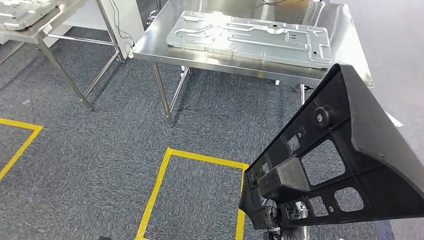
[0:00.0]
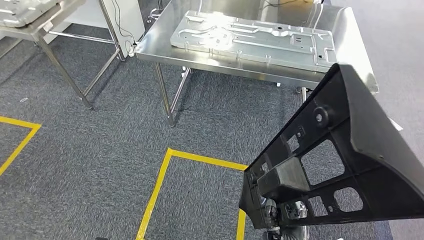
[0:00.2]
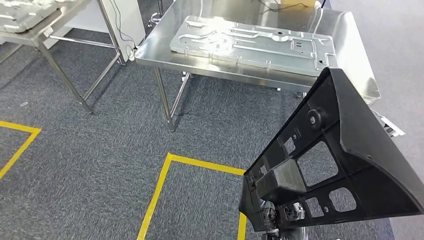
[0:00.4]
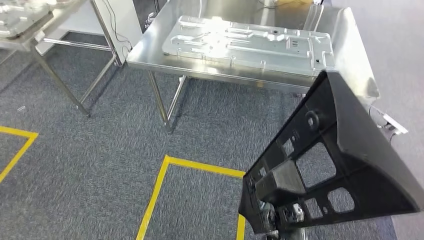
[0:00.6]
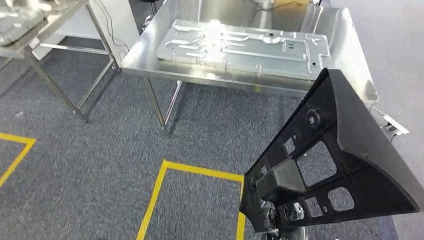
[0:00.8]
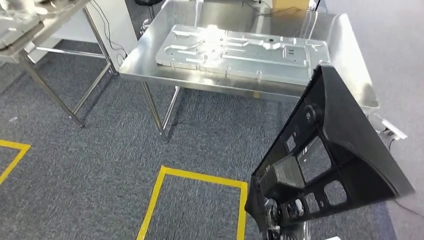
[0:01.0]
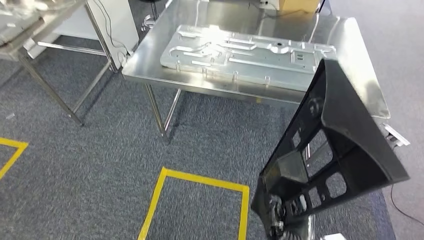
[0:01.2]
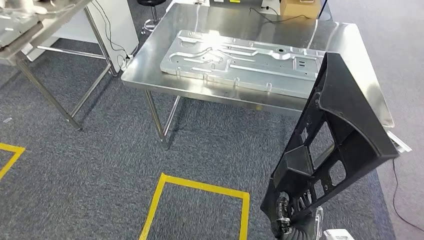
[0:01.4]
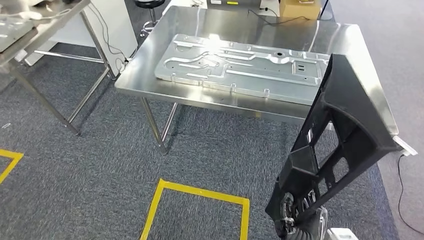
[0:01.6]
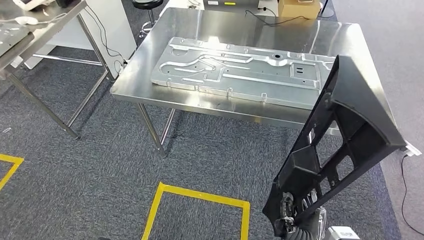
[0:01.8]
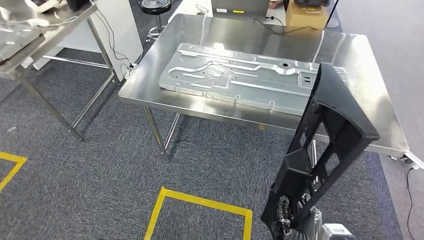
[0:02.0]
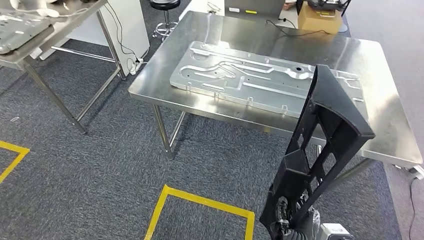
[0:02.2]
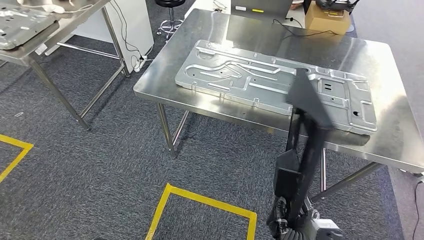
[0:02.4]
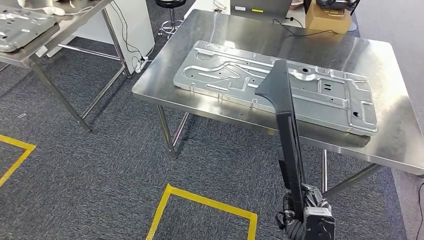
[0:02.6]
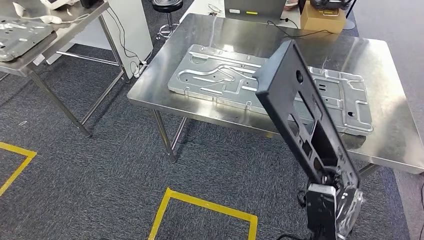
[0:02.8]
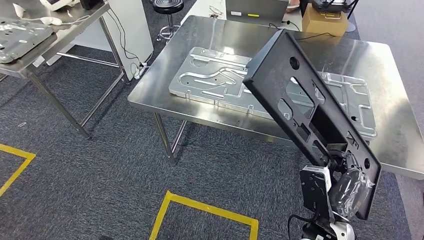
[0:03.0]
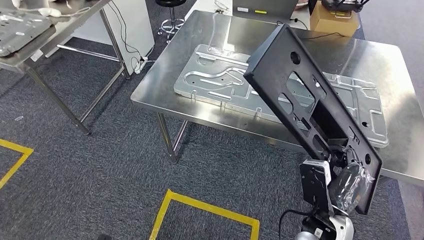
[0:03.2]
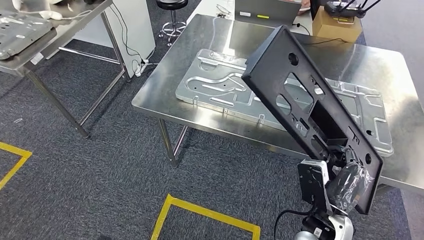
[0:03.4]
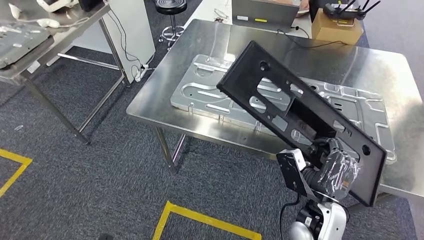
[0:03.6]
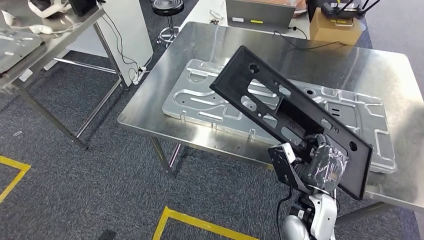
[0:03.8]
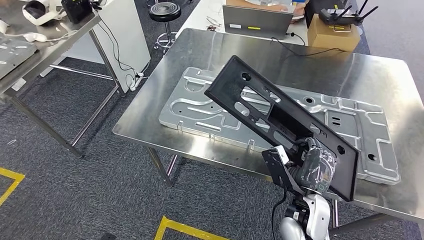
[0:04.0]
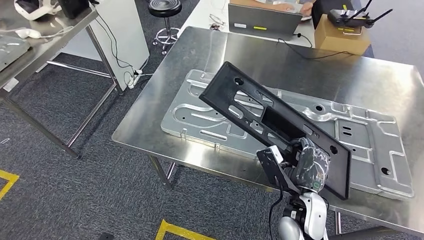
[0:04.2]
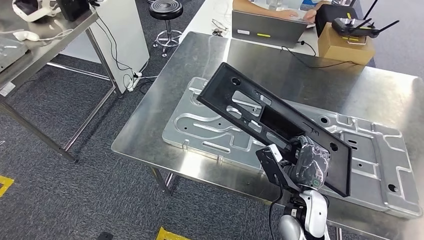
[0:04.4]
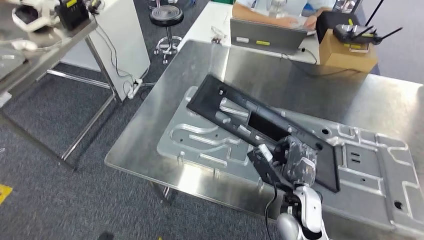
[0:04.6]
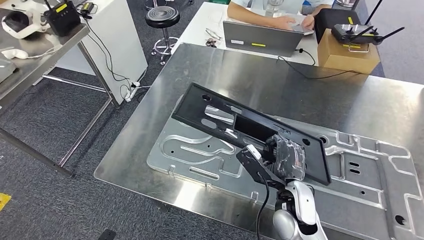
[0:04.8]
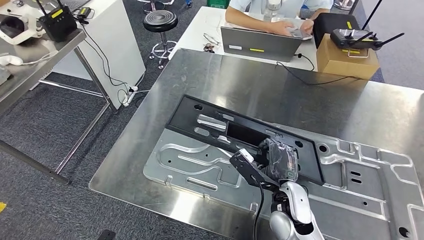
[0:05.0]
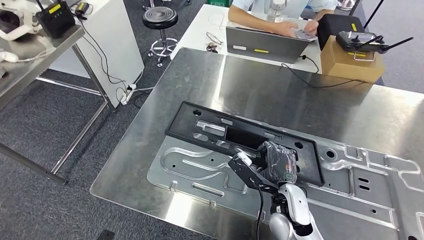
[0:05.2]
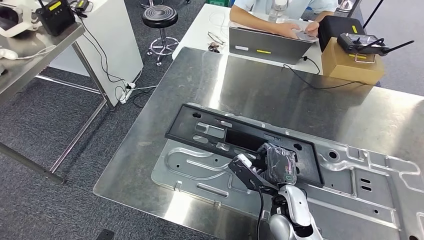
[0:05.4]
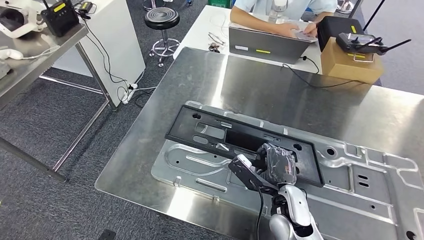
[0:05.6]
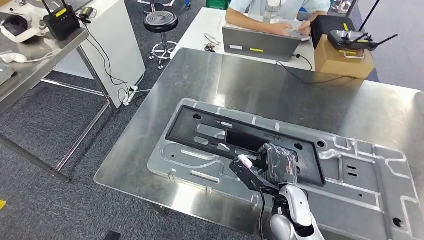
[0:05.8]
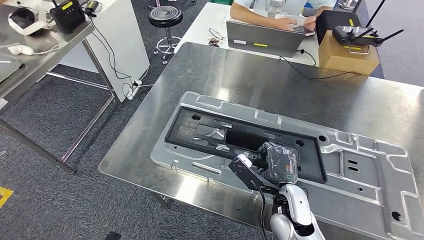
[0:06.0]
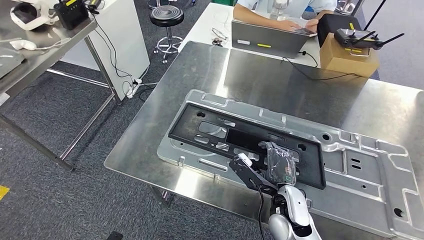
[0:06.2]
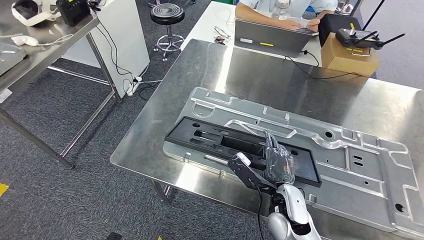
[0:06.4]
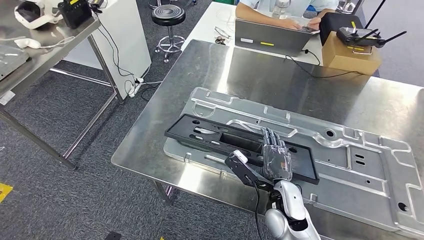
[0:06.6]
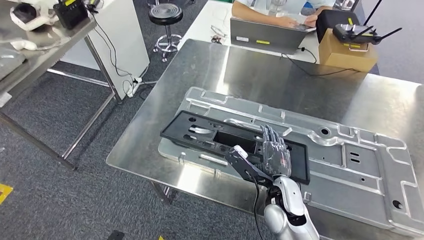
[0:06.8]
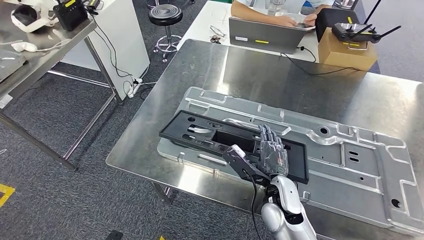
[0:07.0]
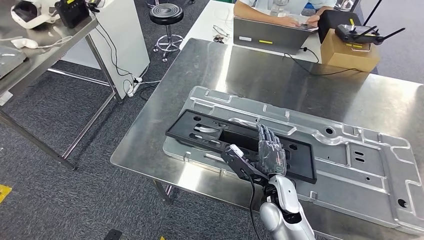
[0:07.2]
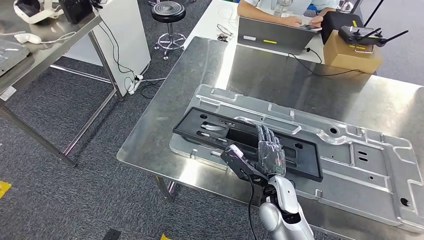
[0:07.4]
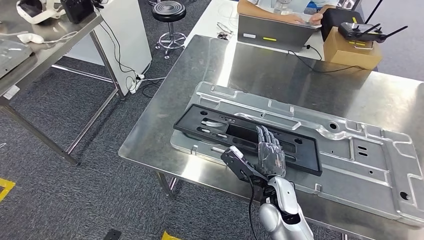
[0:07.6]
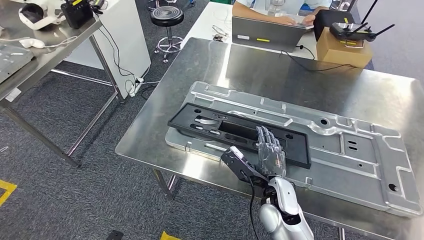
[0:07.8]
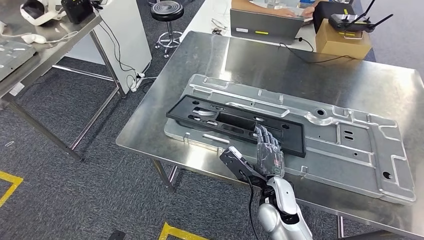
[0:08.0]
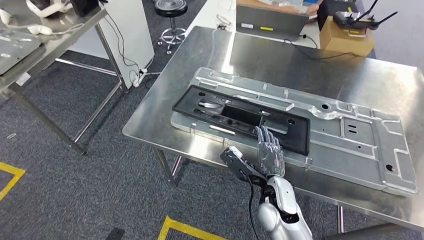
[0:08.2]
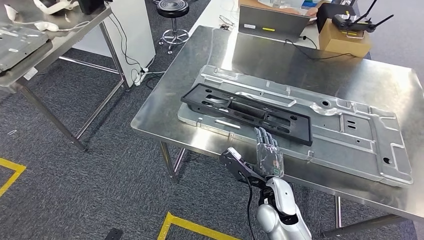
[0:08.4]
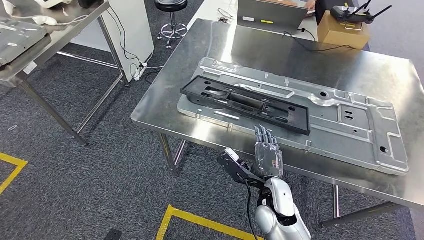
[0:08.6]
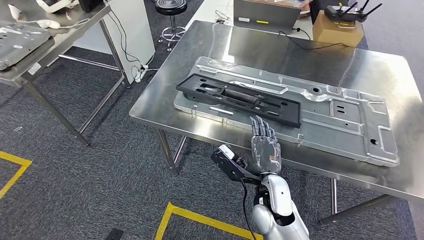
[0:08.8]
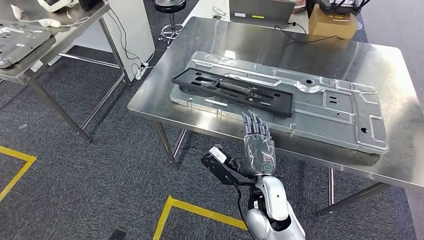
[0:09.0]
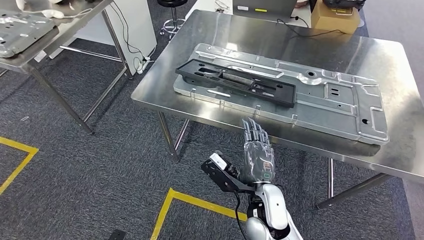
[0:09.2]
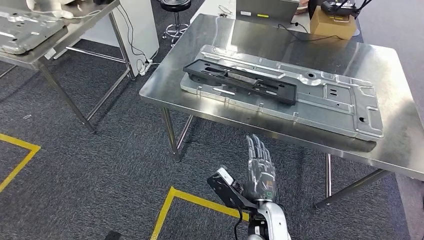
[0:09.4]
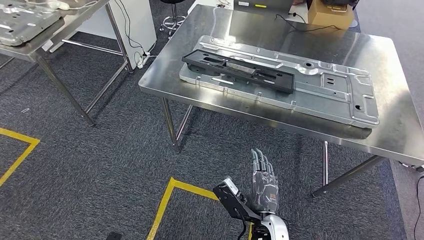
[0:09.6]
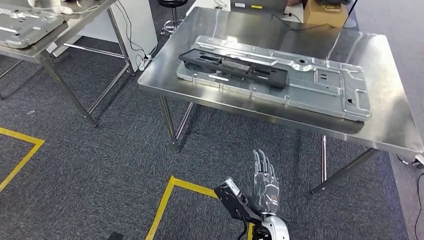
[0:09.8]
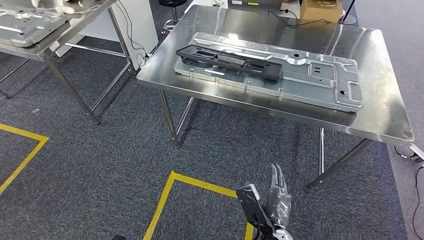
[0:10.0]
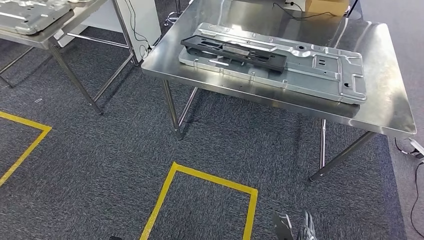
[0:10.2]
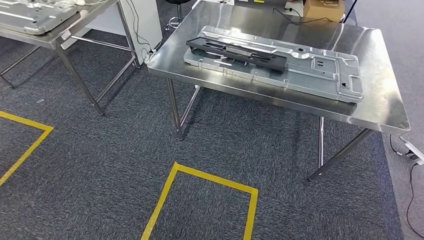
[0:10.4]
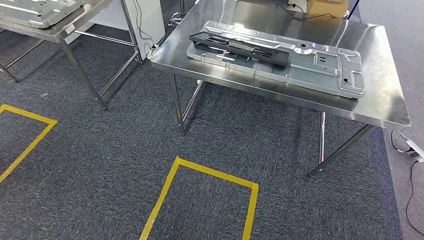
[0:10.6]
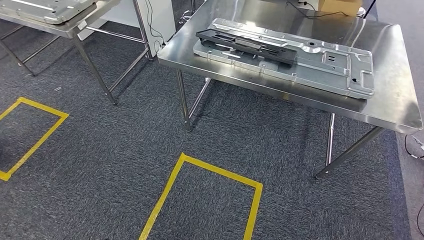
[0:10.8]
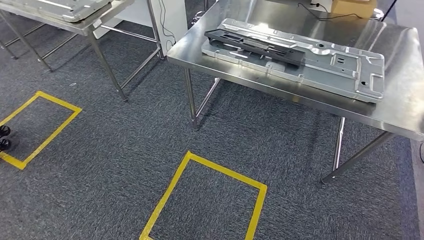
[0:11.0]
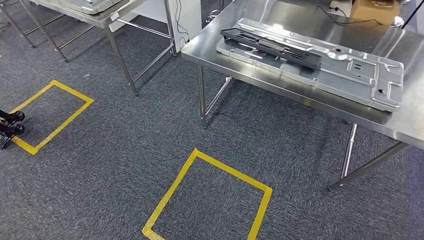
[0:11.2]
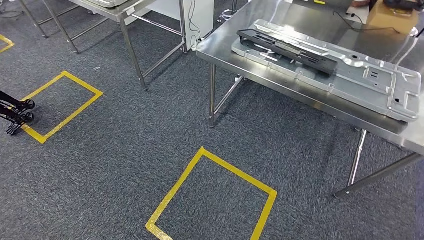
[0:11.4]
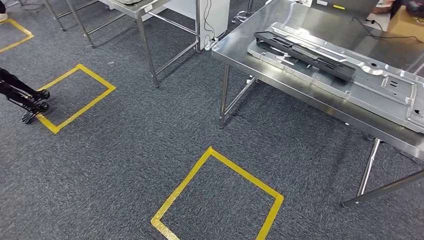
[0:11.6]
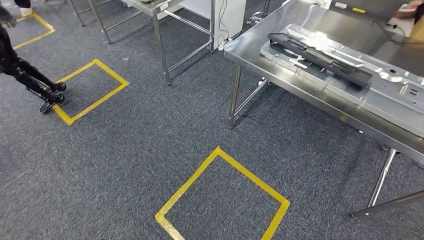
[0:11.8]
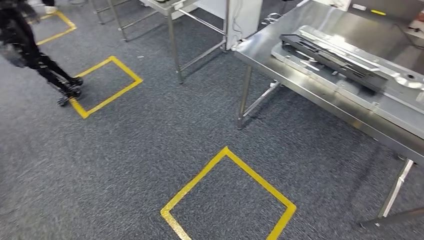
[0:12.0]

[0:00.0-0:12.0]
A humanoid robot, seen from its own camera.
Step, 0:00.0 to 0:03.4: Move the large material to the workbench.
Step, 0:05.0 to 0:10.0: Insert the large material into the corresponding slot on the workbench.

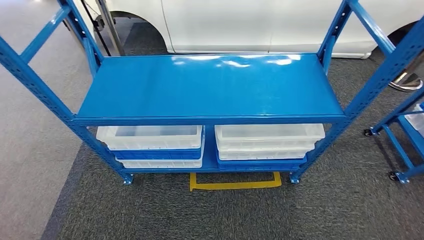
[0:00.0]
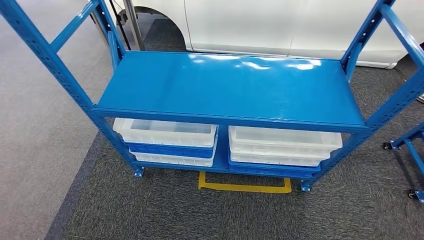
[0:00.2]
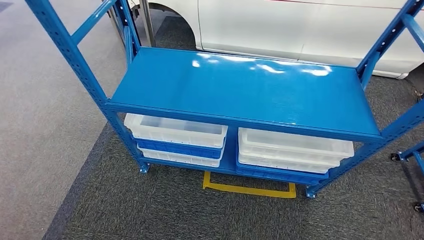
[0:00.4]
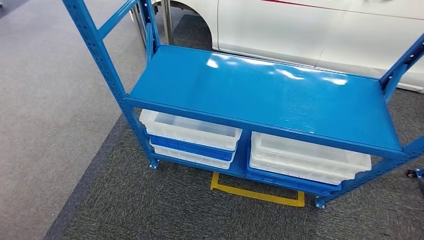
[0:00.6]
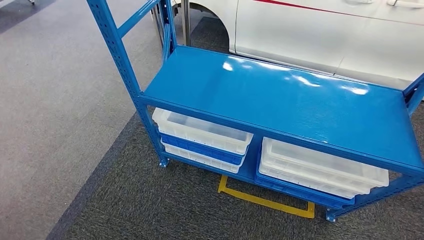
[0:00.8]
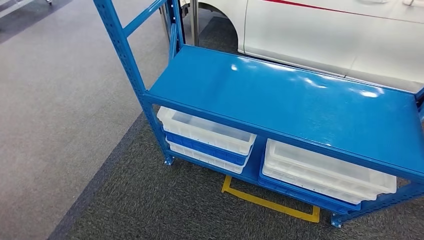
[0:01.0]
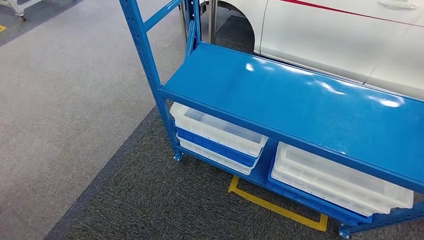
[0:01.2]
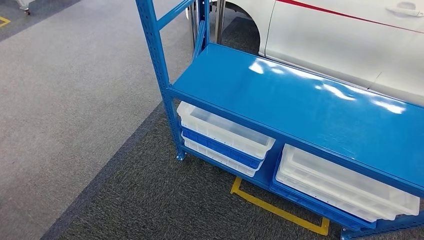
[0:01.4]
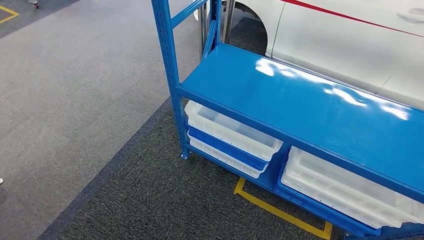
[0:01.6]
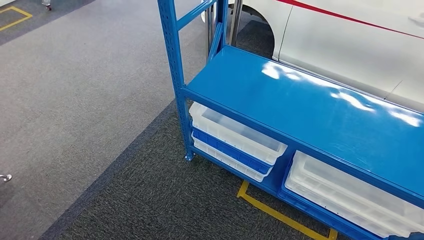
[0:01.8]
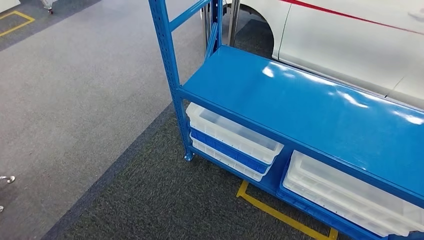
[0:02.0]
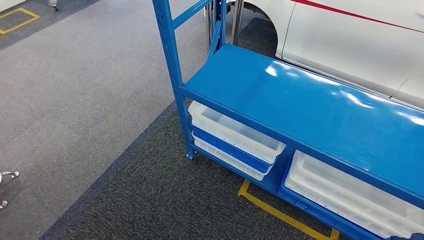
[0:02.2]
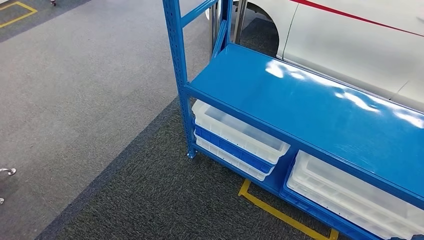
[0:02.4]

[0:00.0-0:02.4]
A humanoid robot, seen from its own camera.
Step, 0:00.0 to 0:02.4: Return to the initial position at the shelf.

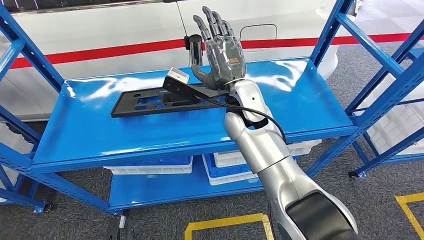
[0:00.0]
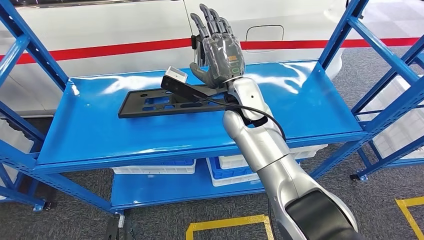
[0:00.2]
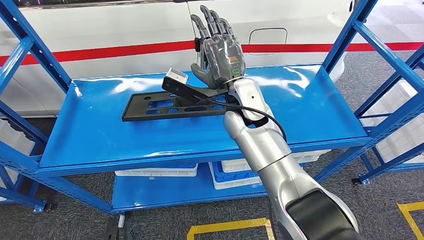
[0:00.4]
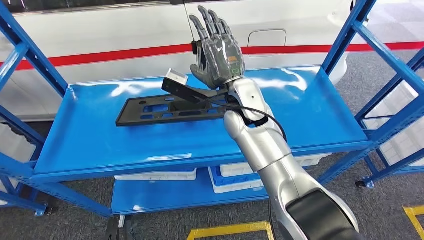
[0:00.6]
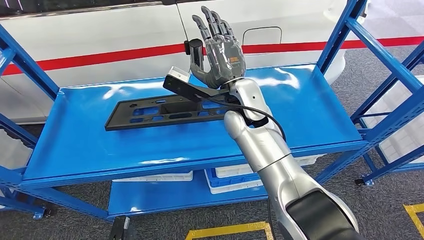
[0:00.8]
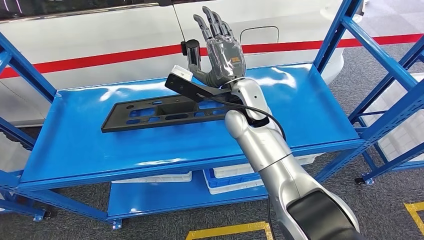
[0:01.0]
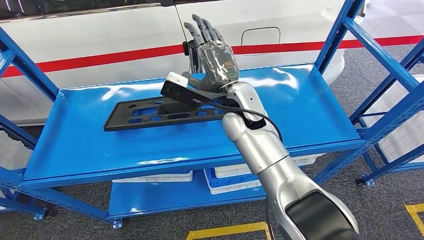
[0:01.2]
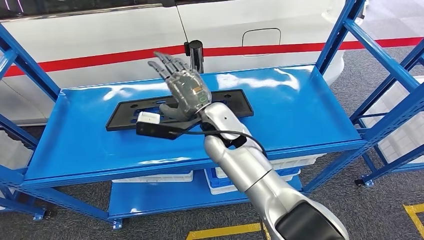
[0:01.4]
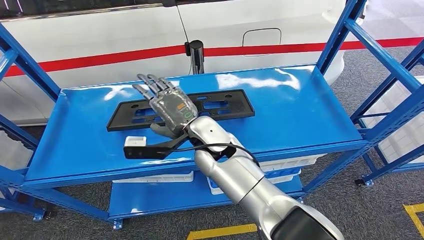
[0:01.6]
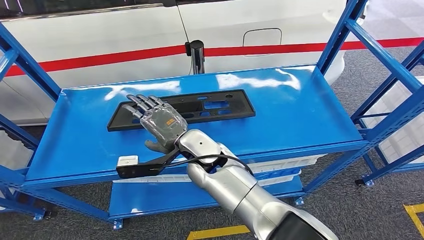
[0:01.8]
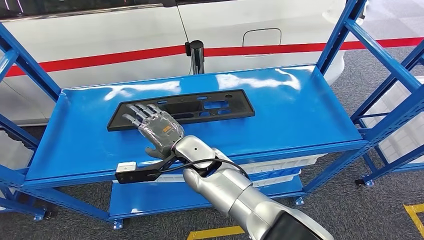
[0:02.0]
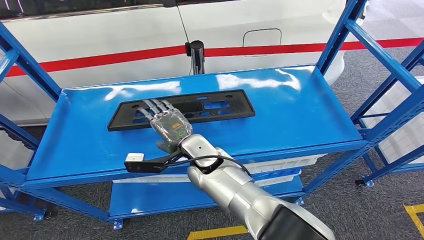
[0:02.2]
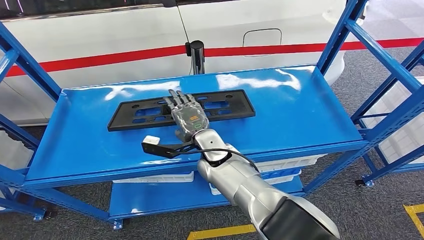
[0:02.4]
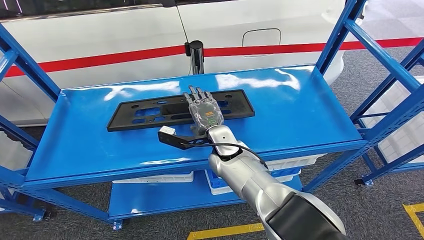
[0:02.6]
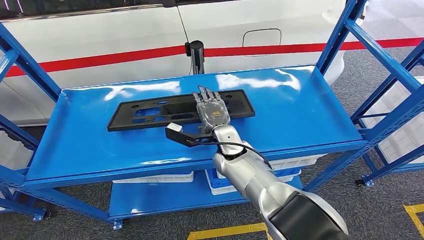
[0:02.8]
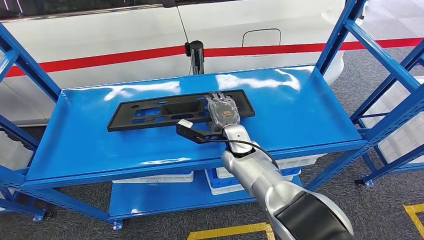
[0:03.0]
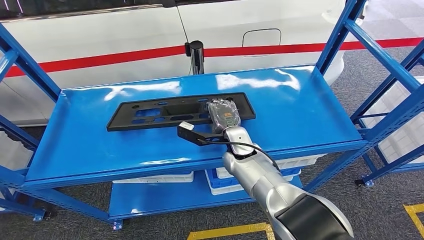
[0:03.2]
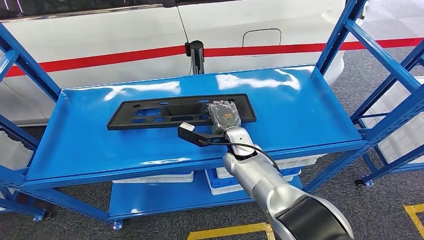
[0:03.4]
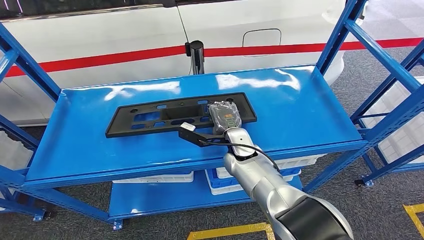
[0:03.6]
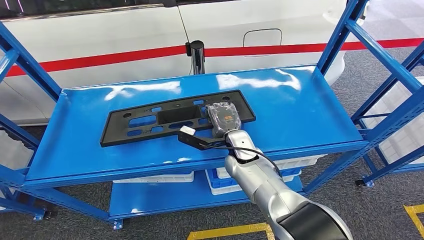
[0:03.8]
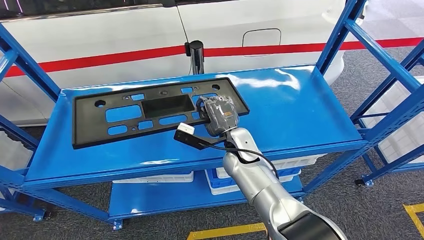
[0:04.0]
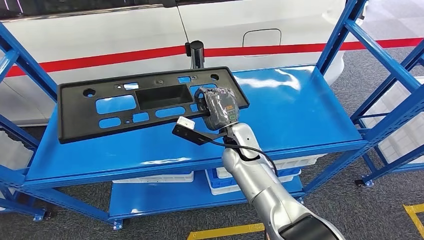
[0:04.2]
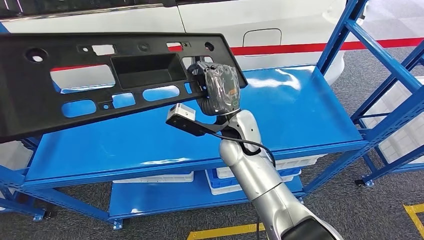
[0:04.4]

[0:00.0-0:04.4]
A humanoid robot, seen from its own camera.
0:01.4 to 0:03.0: The right hand is displaced downward by some 10 cm.
